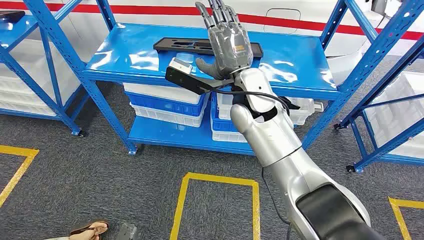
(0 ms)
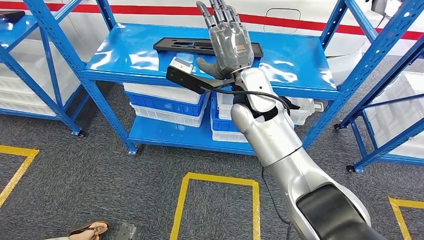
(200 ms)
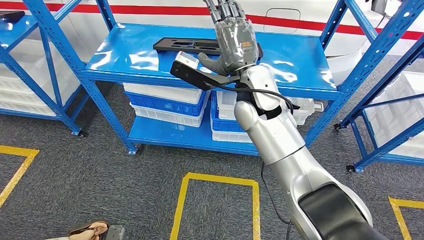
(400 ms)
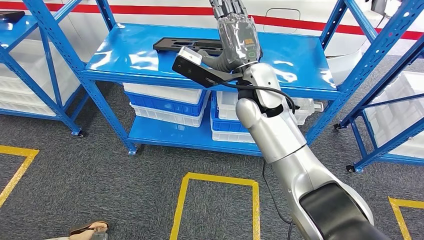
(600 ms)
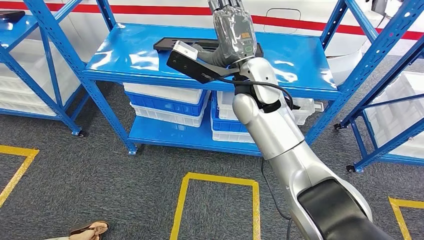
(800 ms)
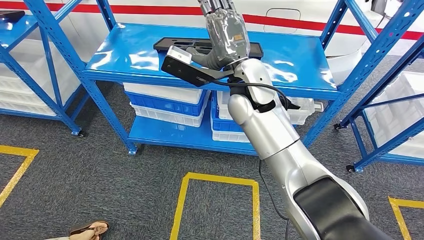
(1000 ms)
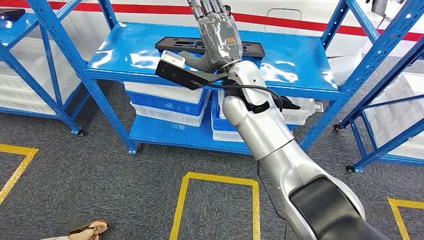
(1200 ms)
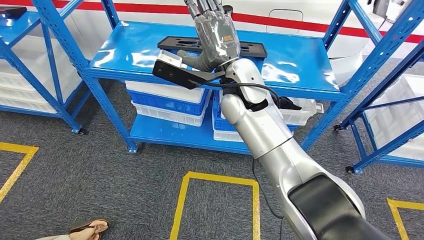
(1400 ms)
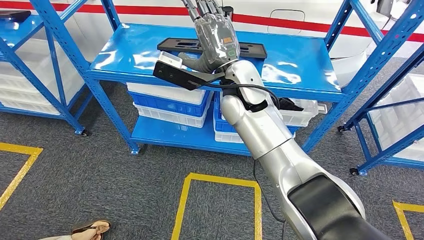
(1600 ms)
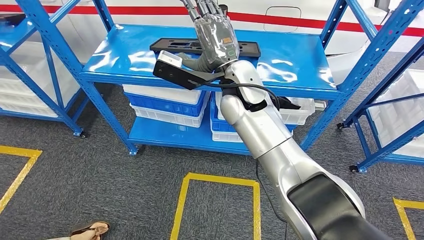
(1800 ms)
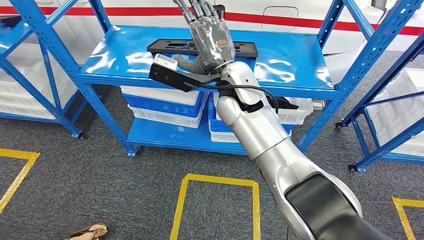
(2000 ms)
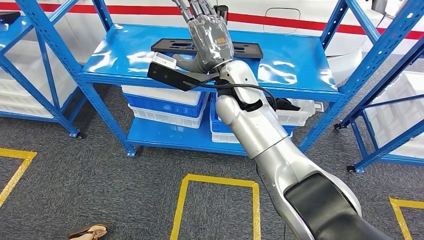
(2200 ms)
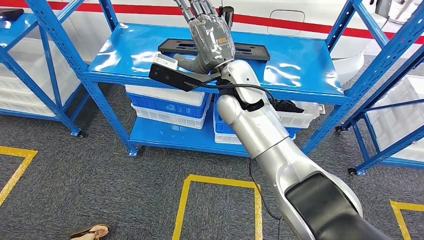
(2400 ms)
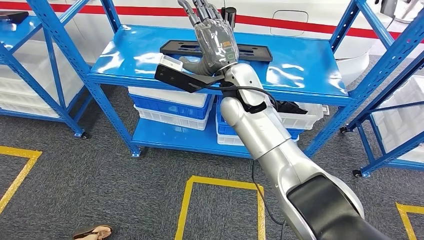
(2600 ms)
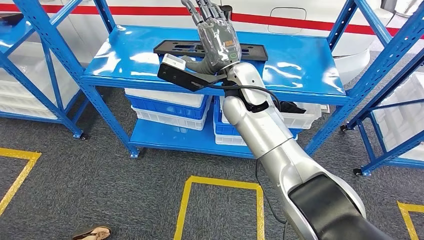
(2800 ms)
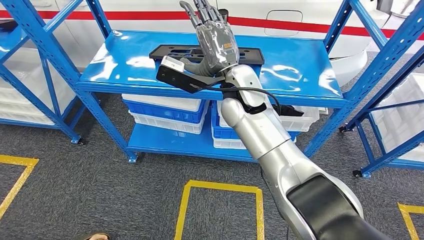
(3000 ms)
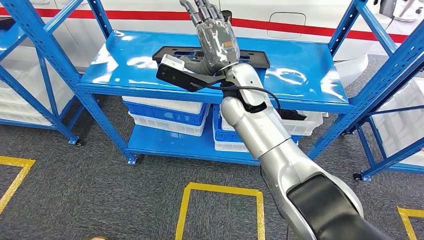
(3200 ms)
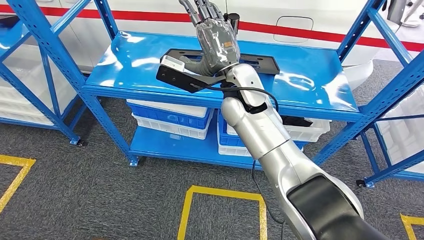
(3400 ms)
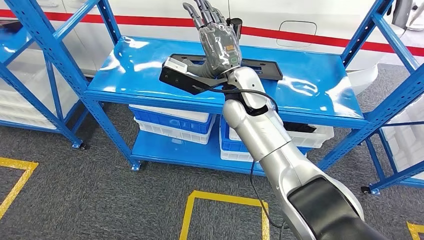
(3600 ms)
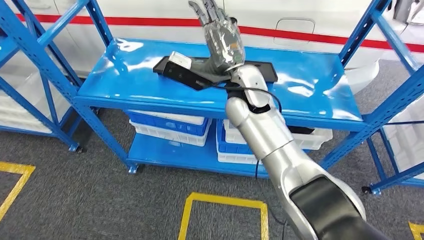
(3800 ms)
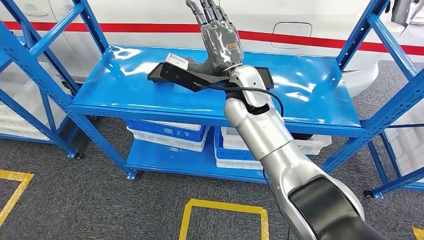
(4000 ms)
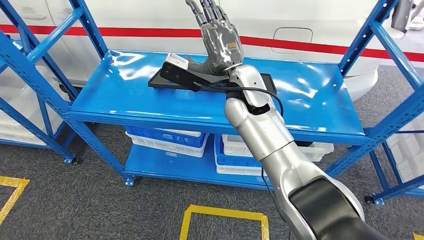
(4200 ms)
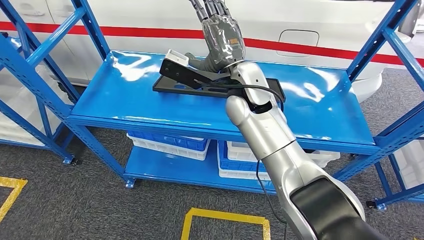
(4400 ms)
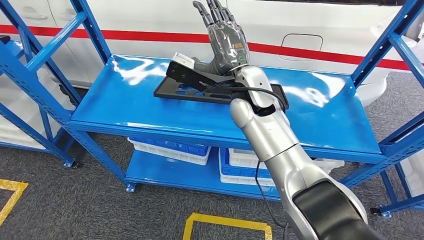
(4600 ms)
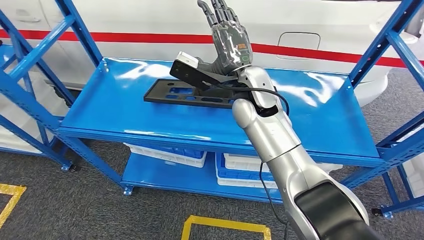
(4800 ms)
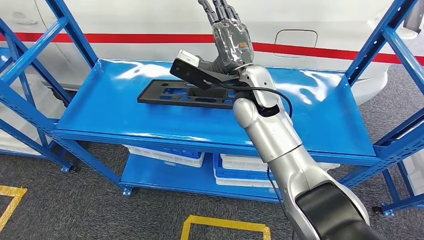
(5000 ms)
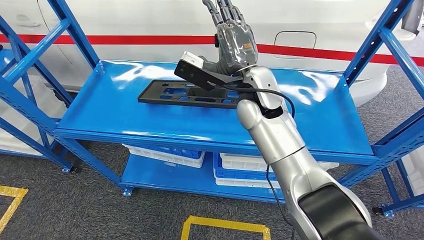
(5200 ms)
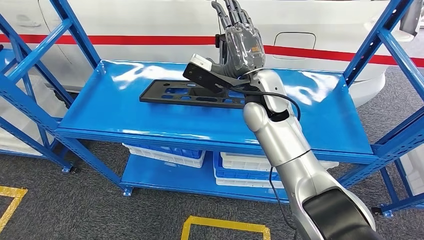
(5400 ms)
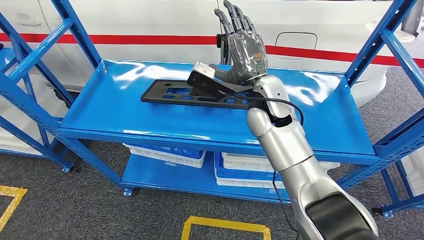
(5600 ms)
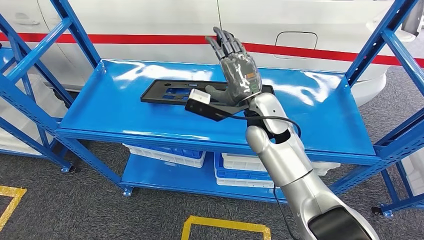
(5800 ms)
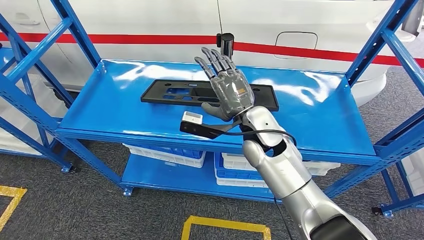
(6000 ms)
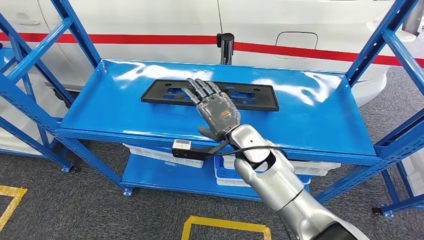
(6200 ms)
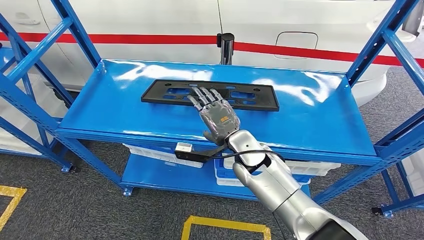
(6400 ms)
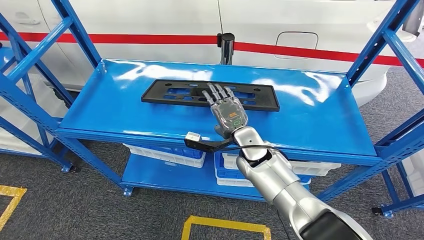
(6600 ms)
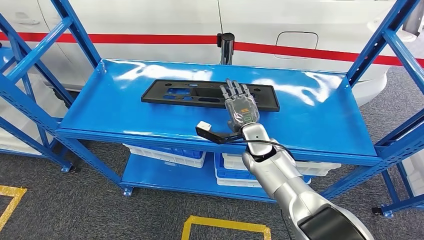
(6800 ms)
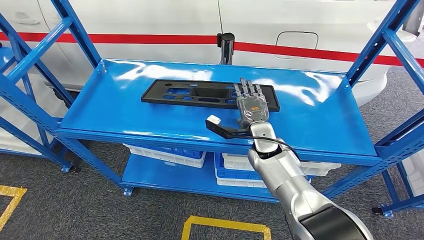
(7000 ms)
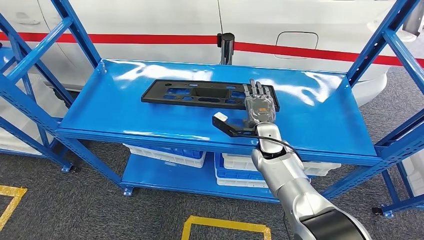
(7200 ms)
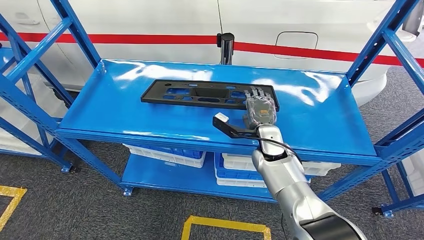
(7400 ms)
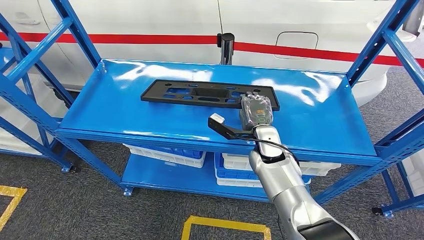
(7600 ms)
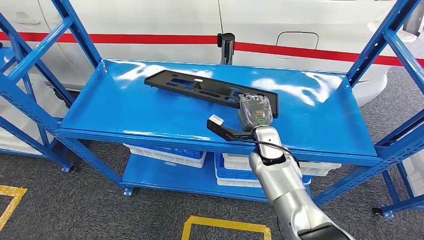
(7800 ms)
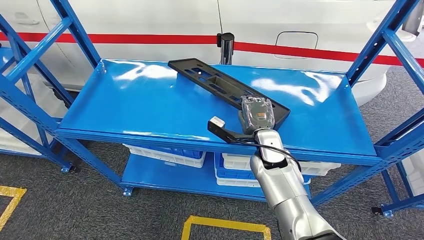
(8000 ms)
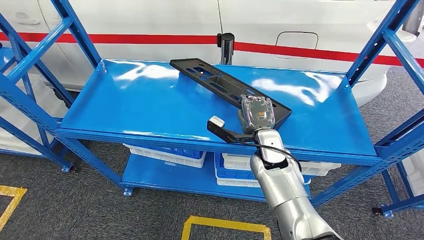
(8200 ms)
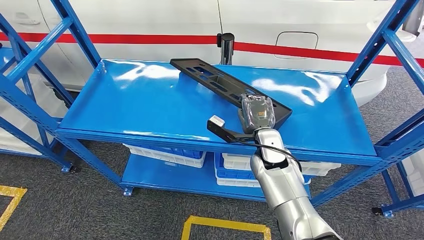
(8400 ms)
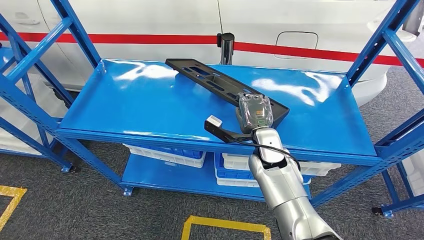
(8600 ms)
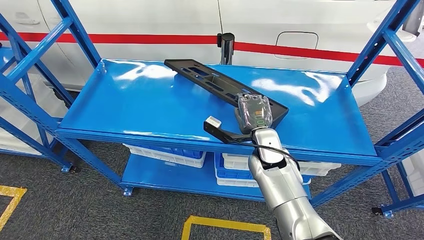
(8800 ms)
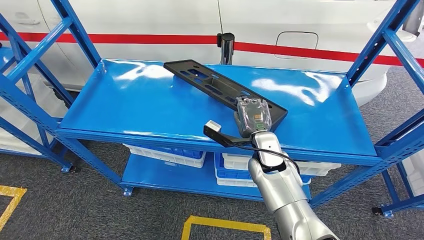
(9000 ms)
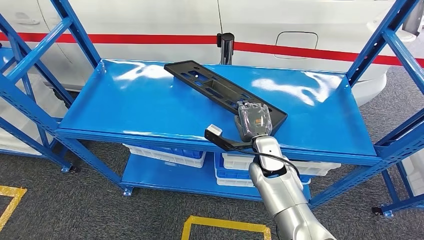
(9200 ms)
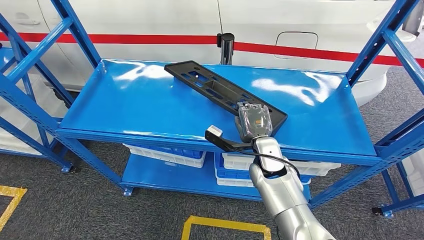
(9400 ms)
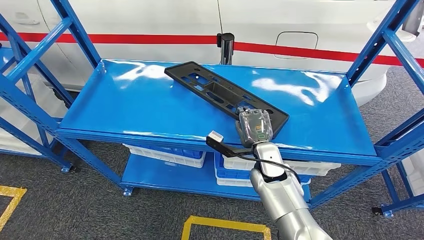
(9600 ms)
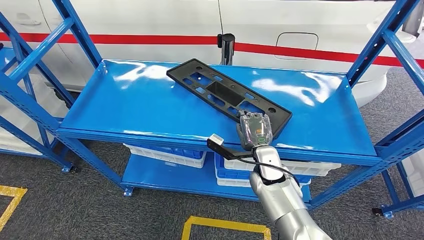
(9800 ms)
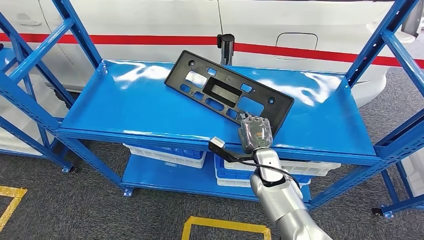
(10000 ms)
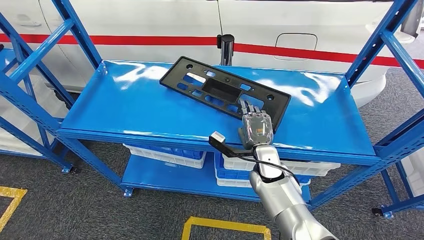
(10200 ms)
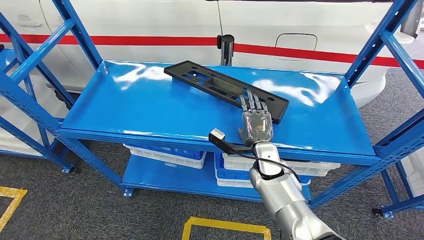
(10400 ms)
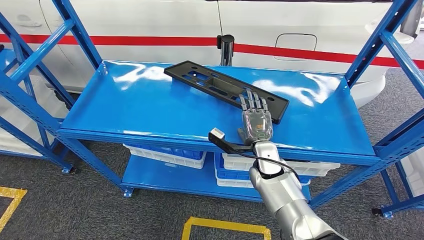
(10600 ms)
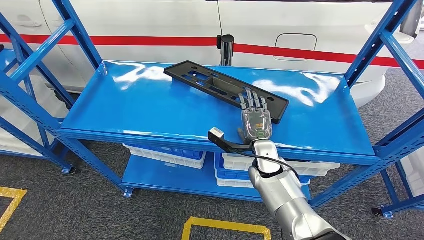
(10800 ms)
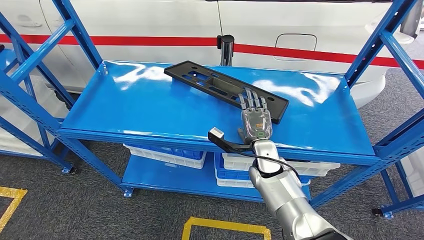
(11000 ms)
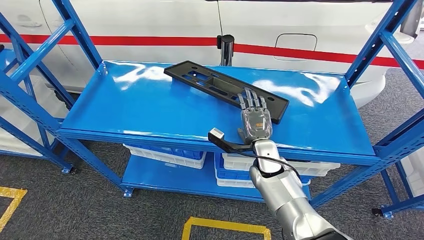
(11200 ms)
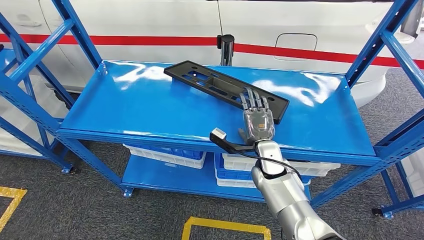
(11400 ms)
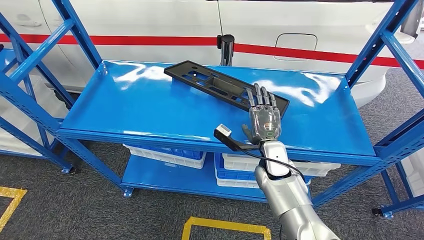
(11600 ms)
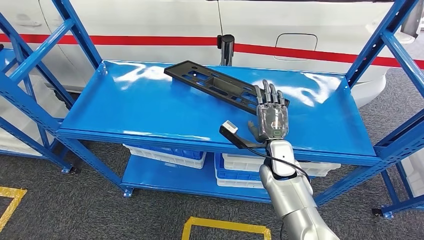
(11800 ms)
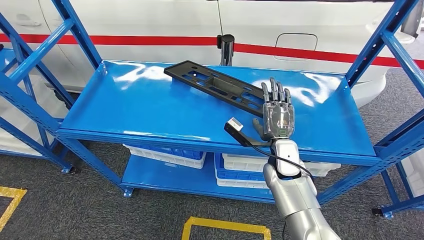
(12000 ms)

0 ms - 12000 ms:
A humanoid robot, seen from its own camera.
6000 ms - 7600 ms: The right hand shifts about 10 cm downward.
7600 ms - 9000 ms: The hands move only a little.
9000 ms - 12000 ms: The hands stay close to where they were, moving slightly.

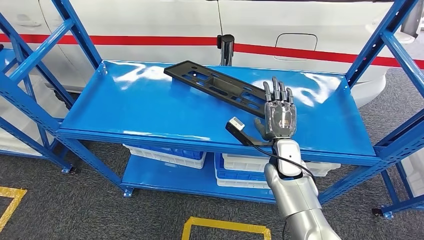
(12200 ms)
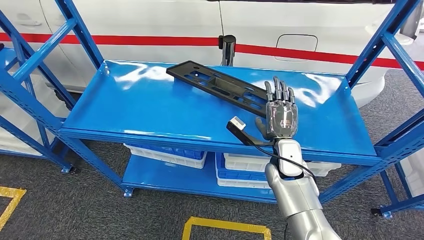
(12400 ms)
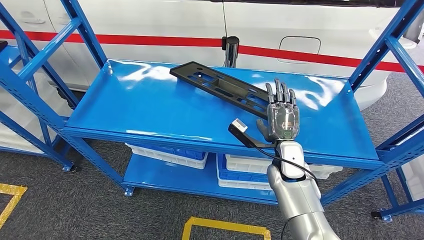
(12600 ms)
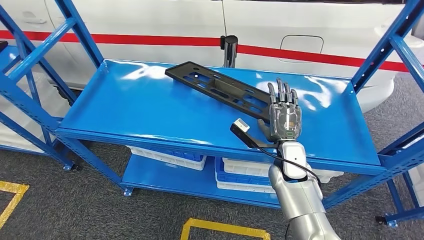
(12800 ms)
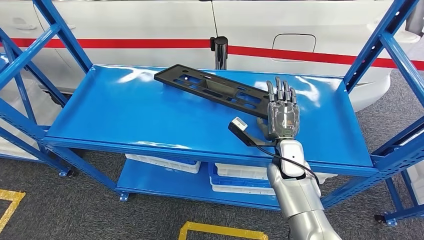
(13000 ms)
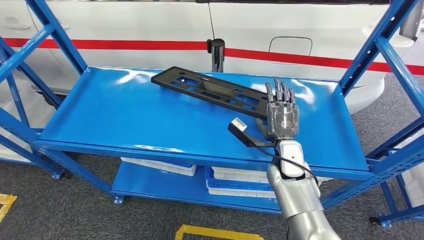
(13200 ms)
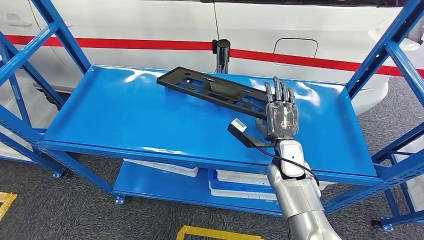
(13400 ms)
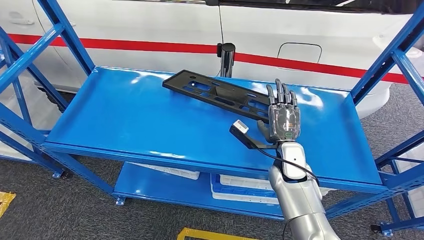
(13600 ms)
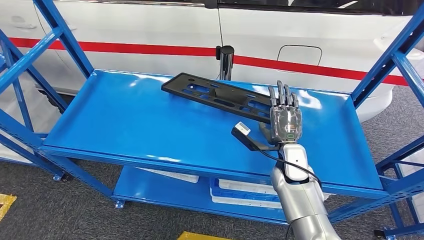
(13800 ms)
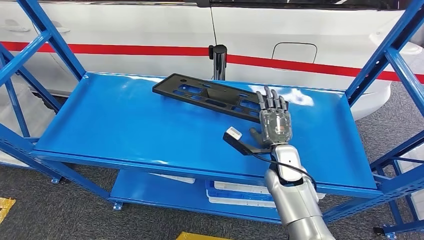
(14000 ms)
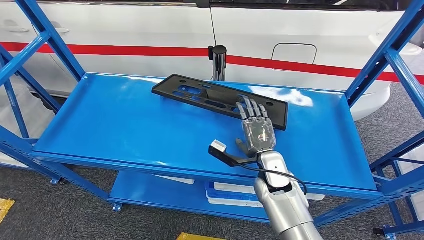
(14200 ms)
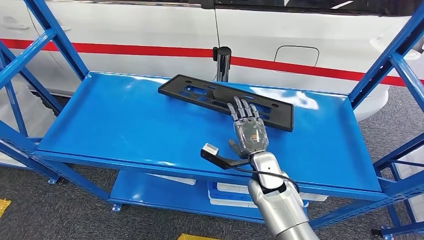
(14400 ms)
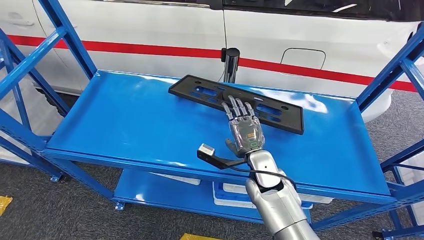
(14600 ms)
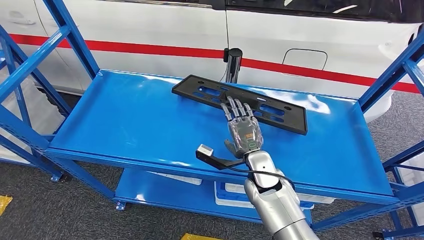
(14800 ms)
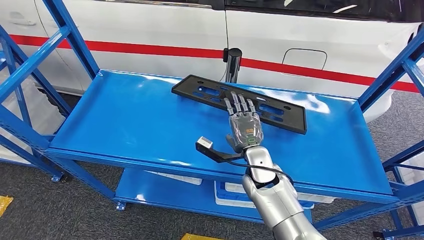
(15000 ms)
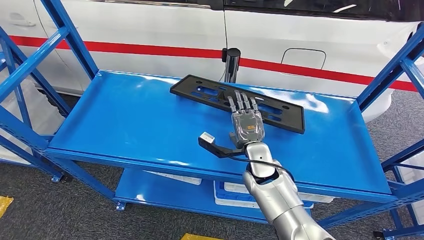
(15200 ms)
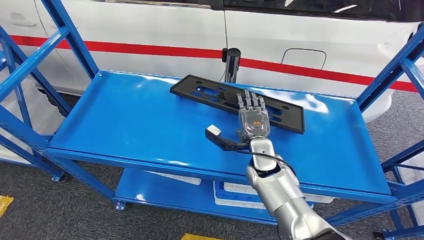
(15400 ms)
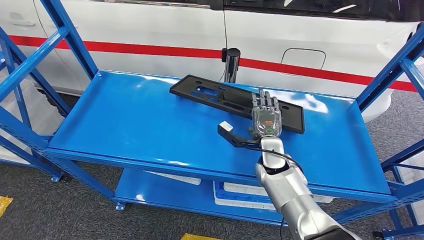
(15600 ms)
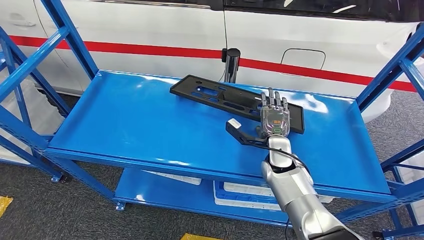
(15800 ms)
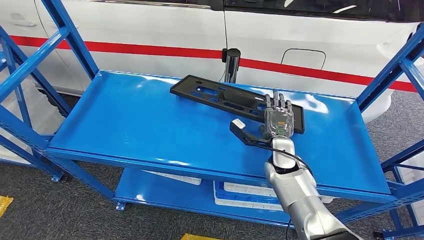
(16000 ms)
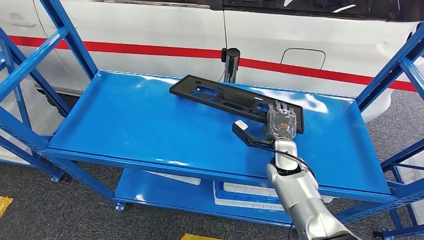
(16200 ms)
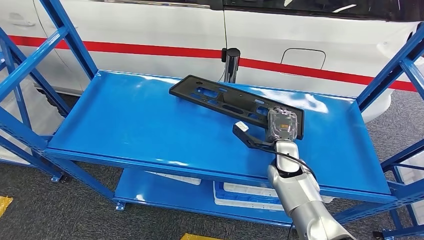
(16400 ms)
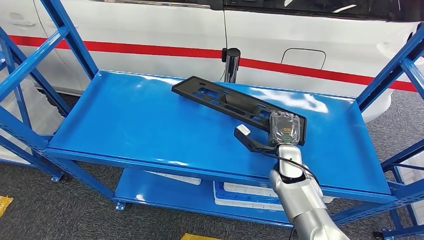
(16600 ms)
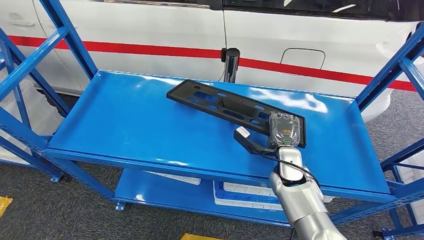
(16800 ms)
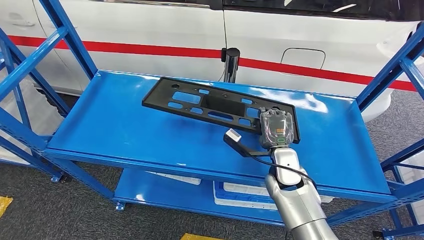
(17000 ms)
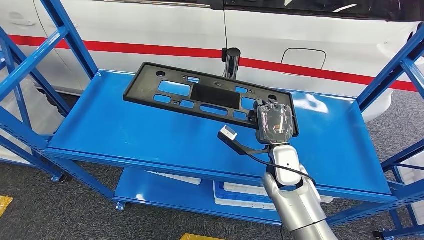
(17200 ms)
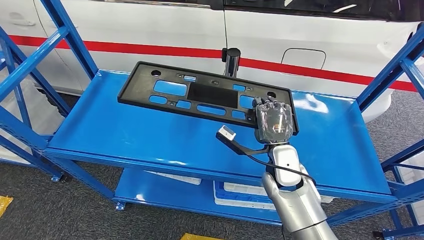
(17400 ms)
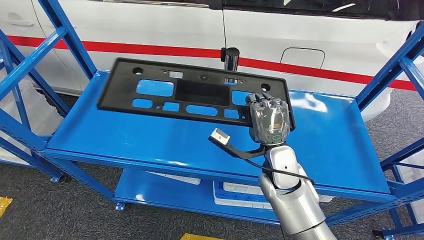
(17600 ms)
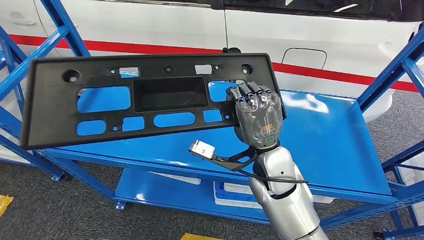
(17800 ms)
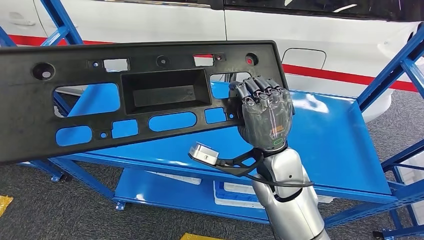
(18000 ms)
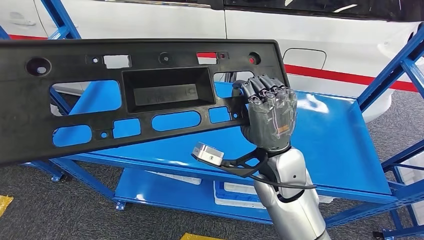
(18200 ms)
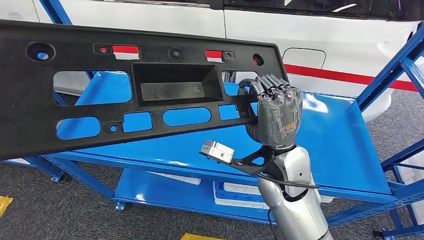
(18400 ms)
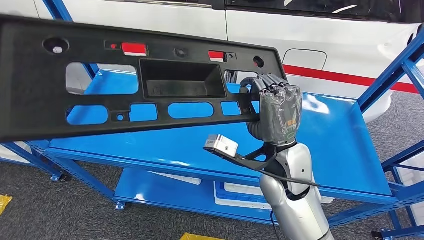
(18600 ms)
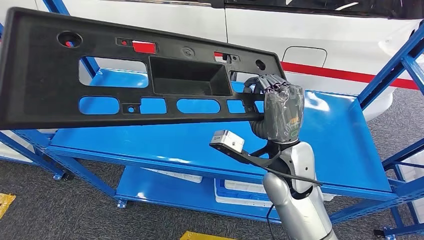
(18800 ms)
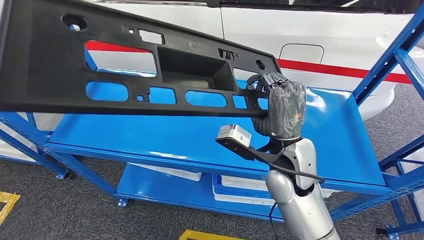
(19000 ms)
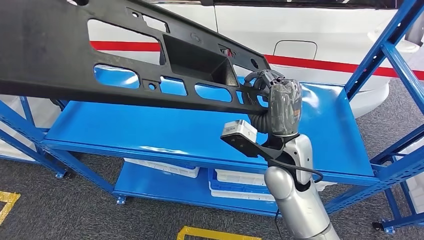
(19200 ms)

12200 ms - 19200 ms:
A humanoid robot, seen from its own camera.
15000 ms - 16400 ms: The right hand is displaced to the right by about 10 cm.
